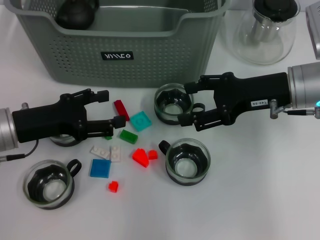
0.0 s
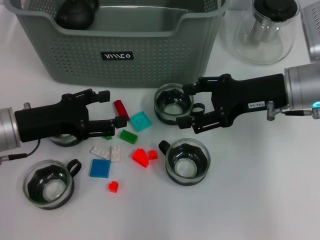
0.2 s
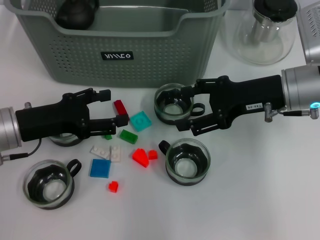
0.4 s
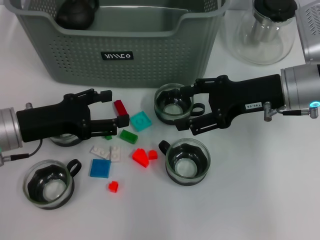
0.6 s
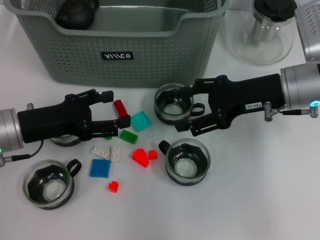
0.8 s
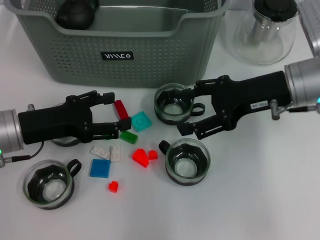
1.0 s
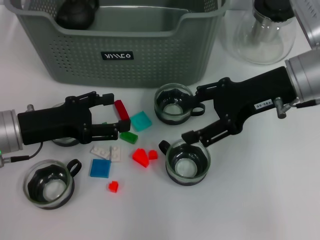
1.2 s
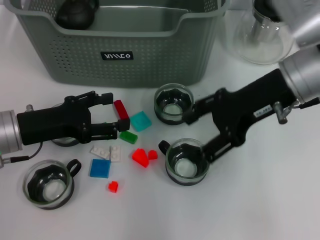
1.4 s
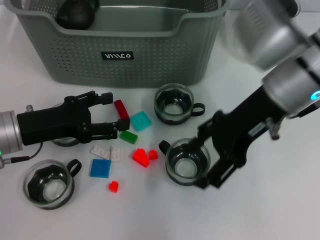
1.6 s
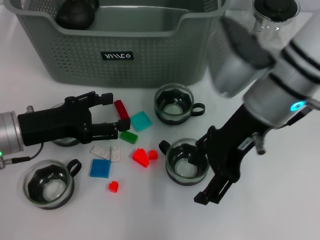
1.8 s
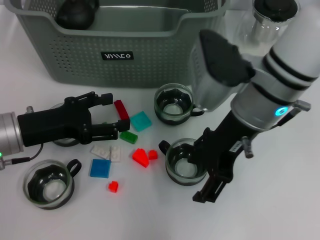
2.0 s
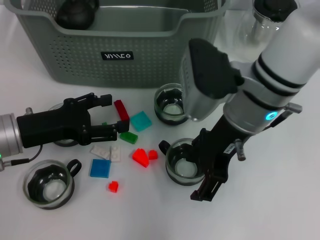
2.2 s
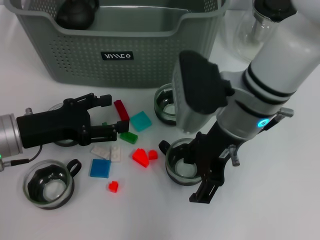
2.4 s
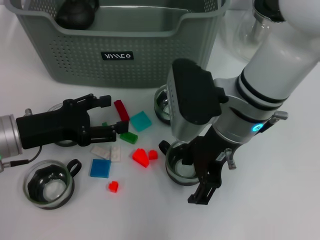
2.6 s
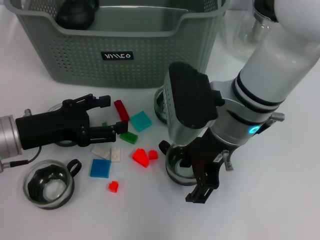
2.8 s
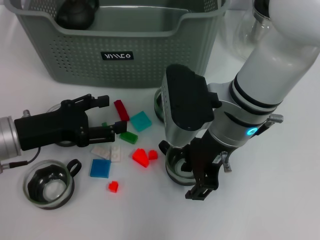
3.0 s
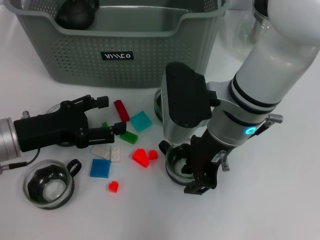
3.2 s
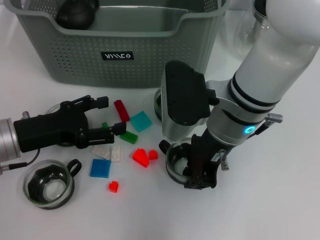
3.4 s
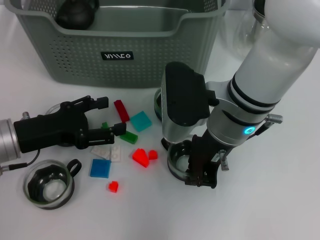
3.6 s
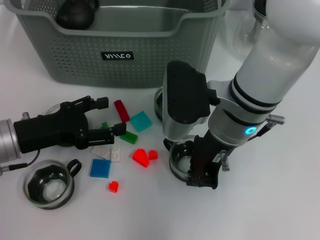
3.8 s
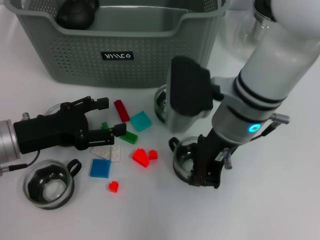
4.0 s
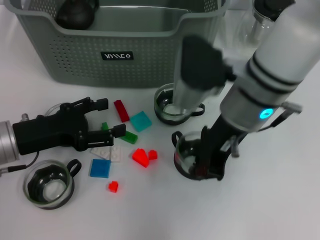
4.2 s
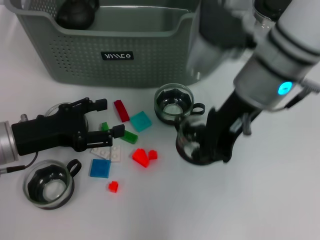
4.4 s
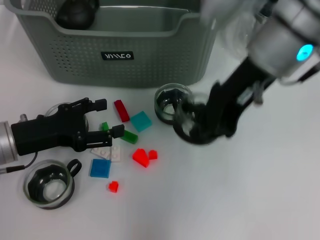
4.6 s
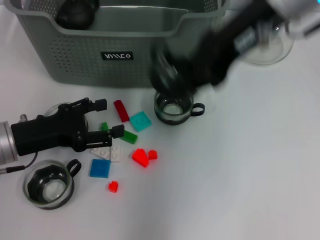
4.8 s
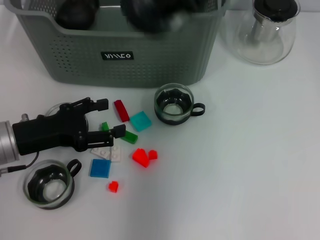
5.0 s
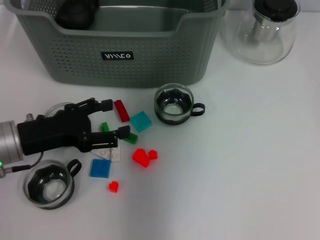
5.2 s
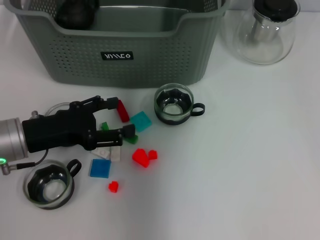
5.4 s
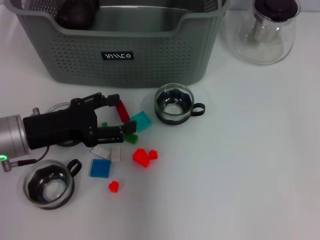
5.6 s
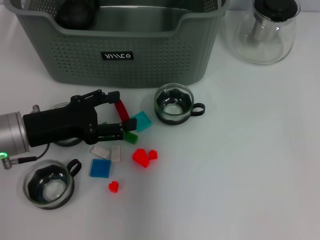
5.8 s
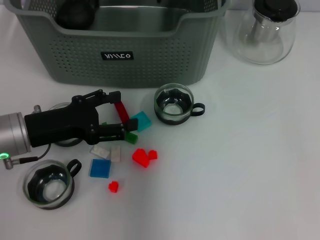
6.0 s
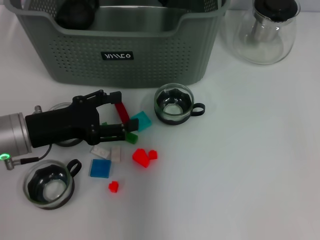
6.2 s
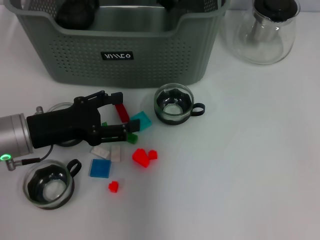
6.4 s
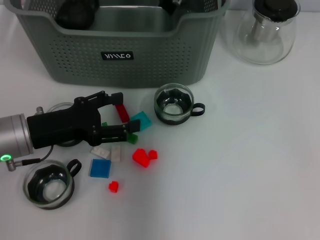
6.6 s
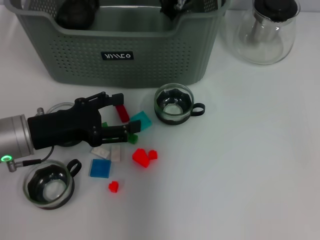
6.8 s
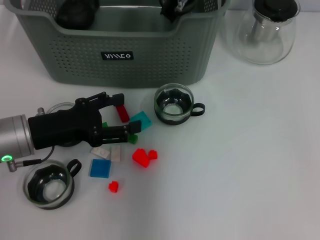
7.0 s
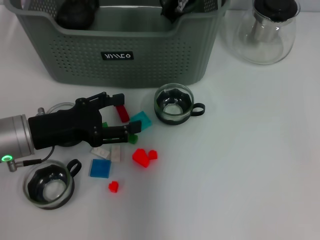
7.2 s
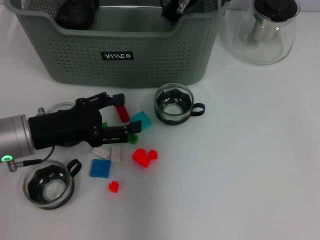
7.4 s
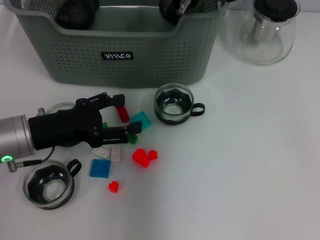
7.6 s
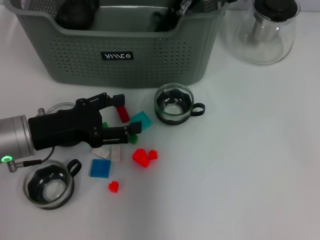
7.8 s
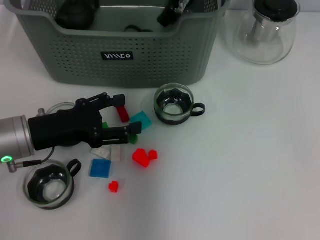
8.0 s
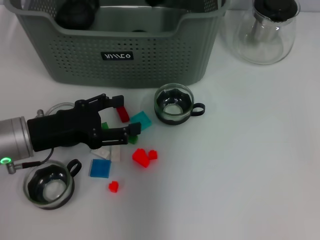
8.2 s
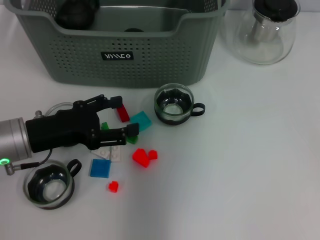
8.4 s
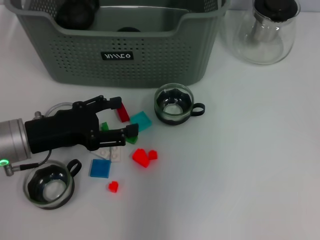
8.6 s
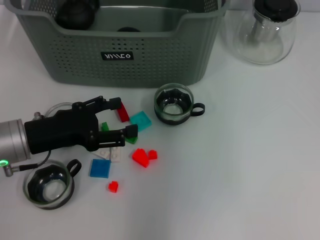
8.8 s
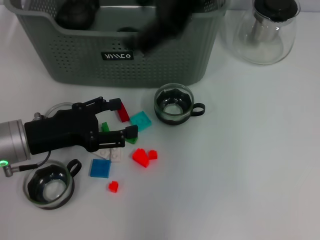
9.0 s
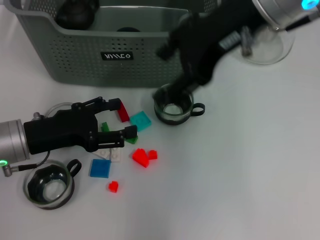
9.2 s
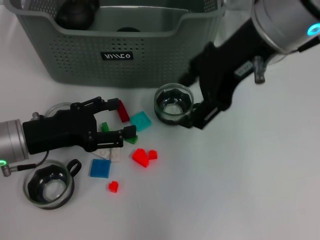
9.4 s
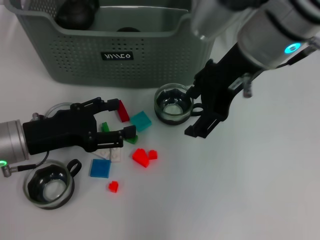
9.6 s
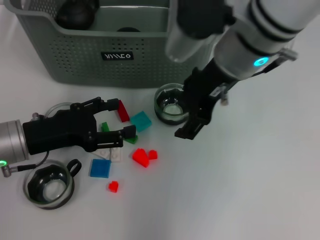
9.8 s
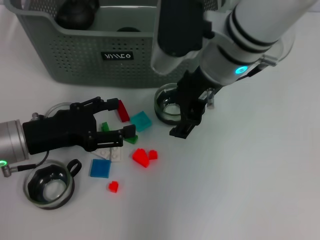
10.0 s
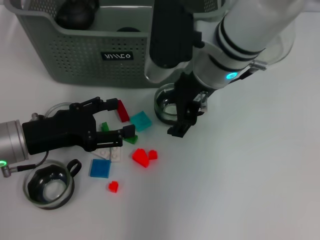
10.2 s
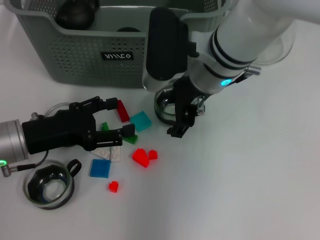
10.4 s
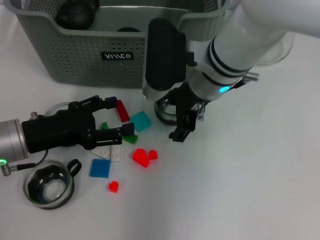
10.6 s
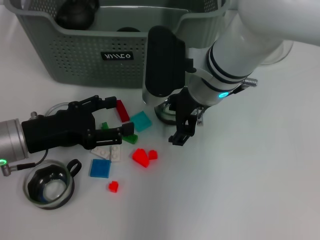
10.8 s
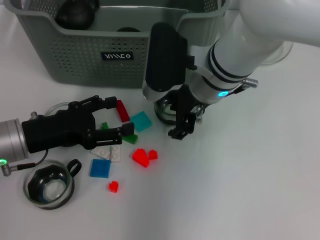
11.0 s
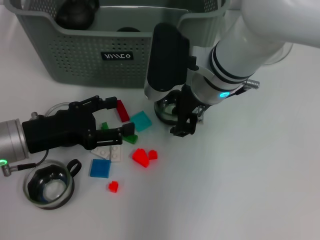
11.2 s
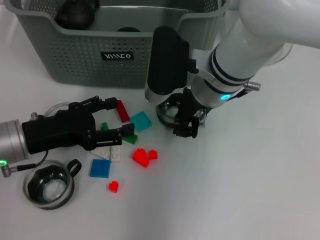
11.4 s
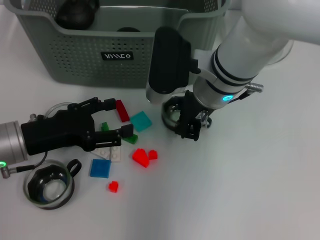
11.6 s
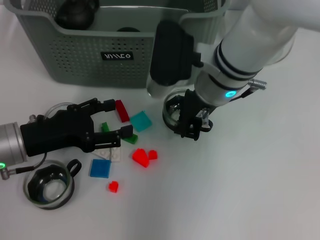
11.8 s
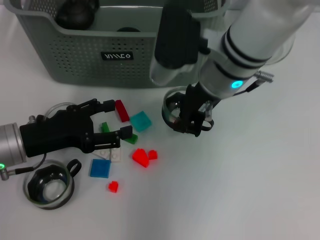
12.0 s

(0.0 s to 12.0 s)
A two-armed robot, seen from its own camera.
Task of the whole recording: pick up the teacup on the table and place it into the storage bin, pick up the block on the table and place it into the storage bin.
Step, 0.0 s - 3.6 s: Grasp the cup with right gripper.
Step, 3.8 s - 8.0 s: Place the cup in the storage box with right gripper.
Step, 8.2 s - 11.6 s: Grasp the cup with right gripper.
0.0 s - 1.6 s: The right gripper shifts some 10 cm to the left and upward.
1.6 s - 3.0 s: The right gripper is displaced to the left by about 5 cm.
3.0 s - 4.4 s: The right gripper moves upward, approximately 5 cm, and closes its fingers.
4.4 s - 6.0 s: The right gripper goes about 15 cm forward and to the left, and travels upward and back again, about 15 cm each way.
6.0 s - 7.6 s: The grippers stay close to where they were, moving slightly.
7.6 s - 9.0 s: The right gripper is displaced backward and upward by about 15 cm, and opens.
9.0 s - 10.4 s: The right gripper heads downward, covering roughly 15 cm.
10.4 s - 12.0 s: The right gripper closes up.

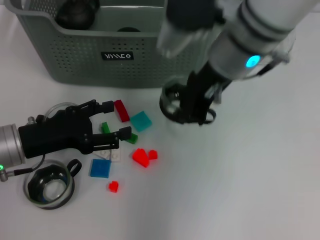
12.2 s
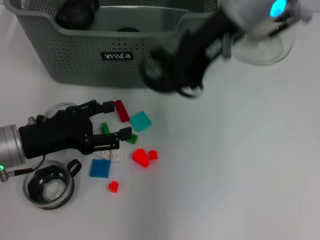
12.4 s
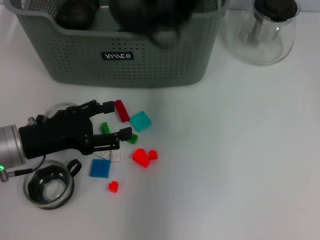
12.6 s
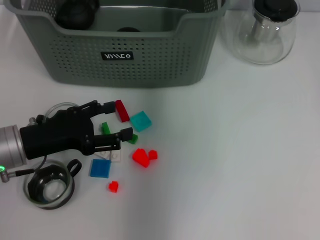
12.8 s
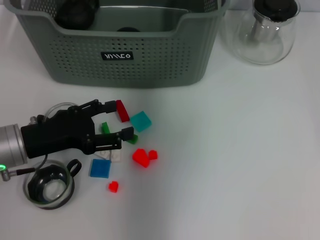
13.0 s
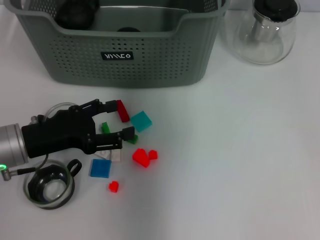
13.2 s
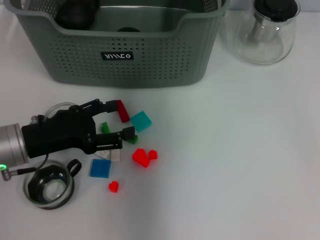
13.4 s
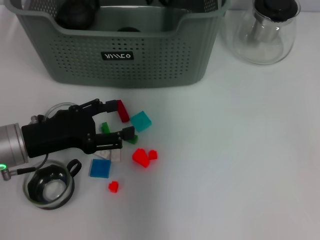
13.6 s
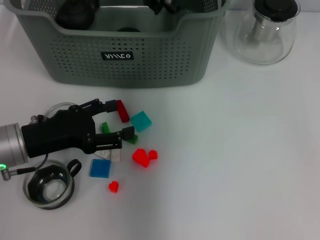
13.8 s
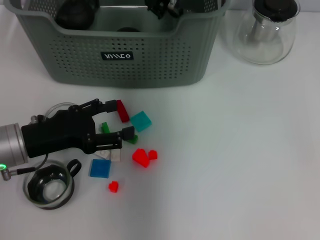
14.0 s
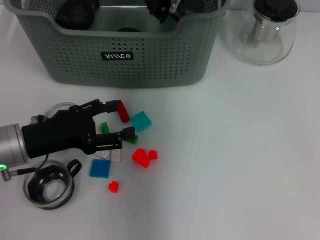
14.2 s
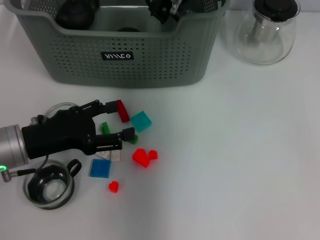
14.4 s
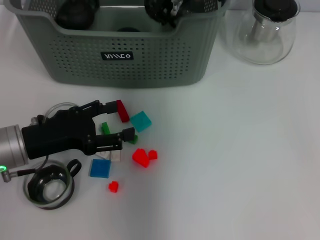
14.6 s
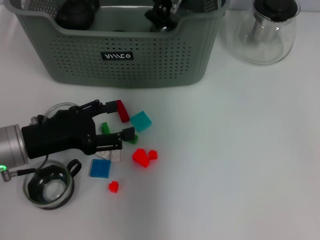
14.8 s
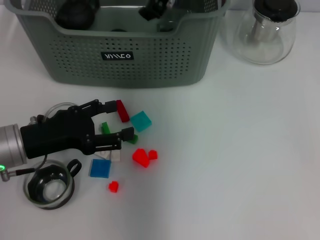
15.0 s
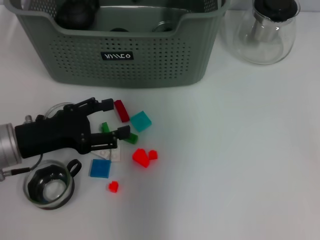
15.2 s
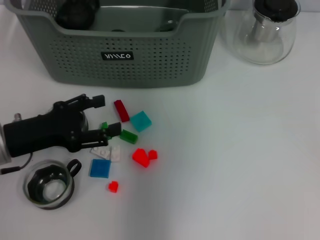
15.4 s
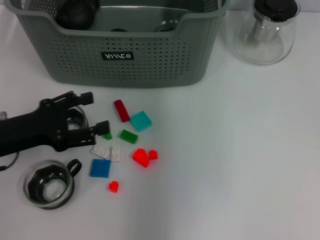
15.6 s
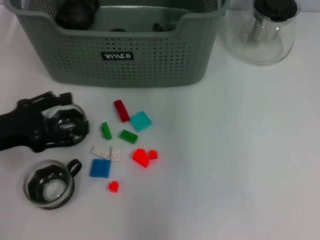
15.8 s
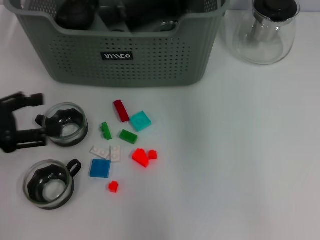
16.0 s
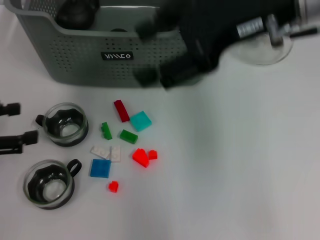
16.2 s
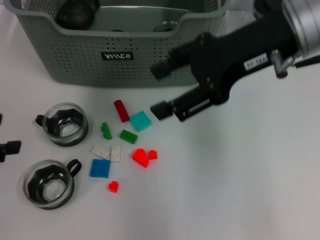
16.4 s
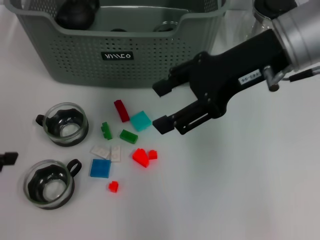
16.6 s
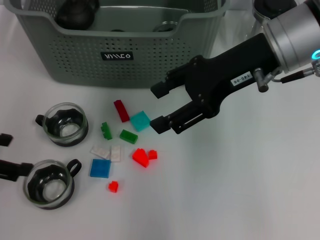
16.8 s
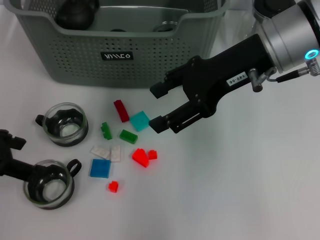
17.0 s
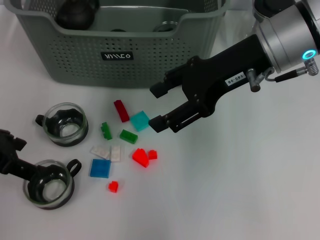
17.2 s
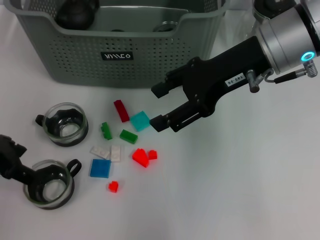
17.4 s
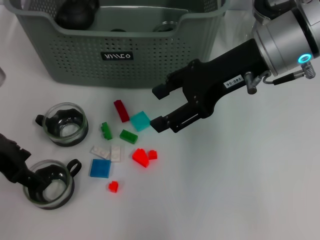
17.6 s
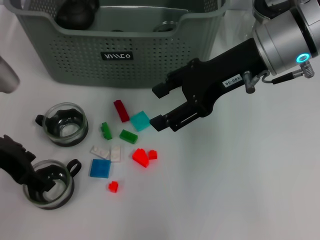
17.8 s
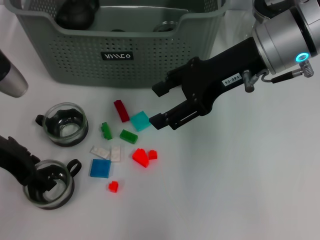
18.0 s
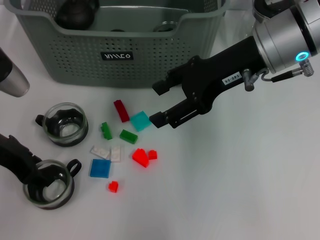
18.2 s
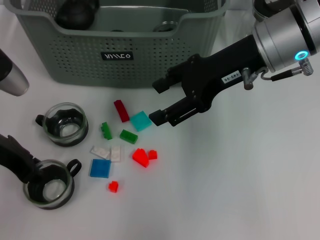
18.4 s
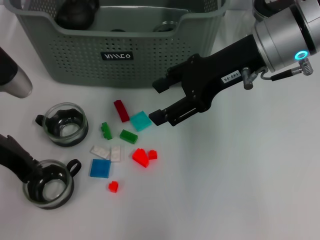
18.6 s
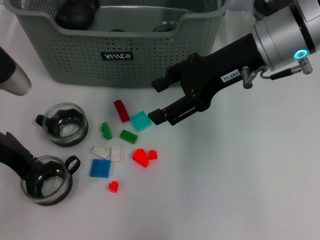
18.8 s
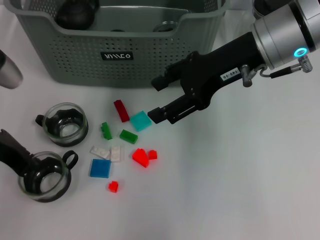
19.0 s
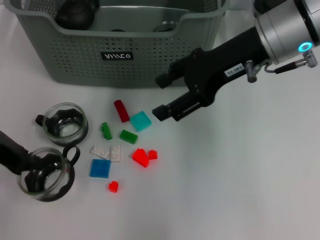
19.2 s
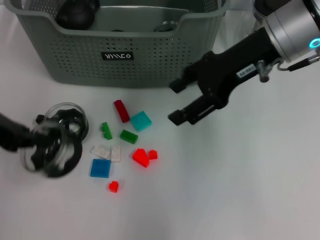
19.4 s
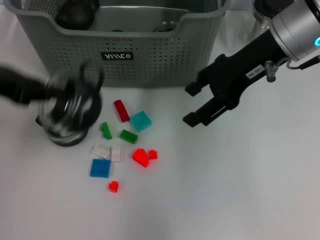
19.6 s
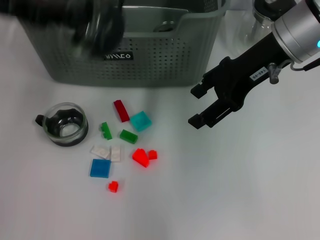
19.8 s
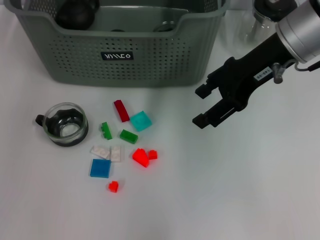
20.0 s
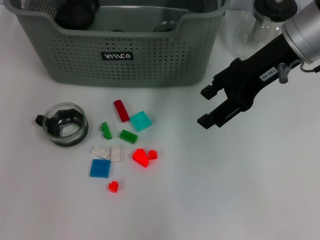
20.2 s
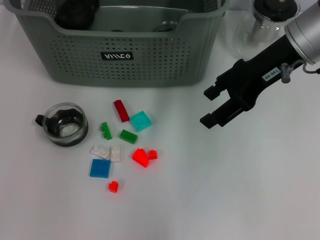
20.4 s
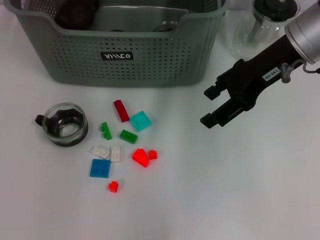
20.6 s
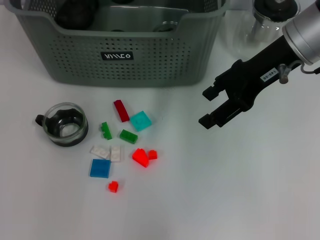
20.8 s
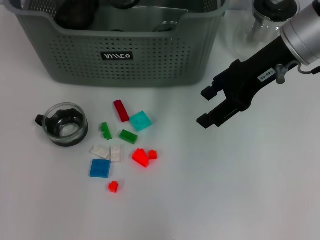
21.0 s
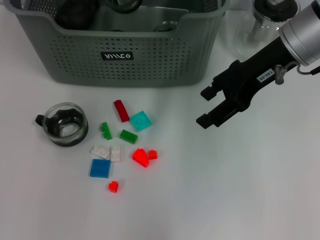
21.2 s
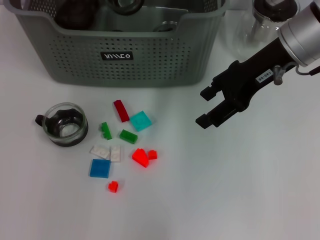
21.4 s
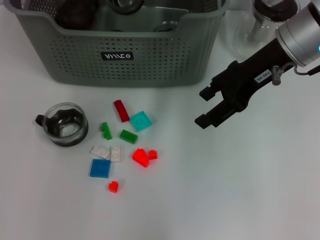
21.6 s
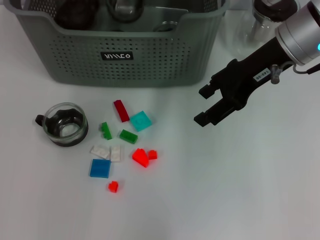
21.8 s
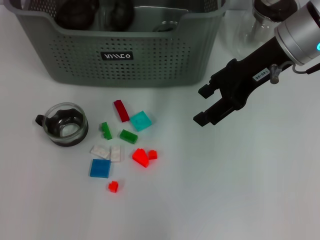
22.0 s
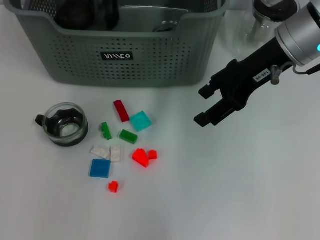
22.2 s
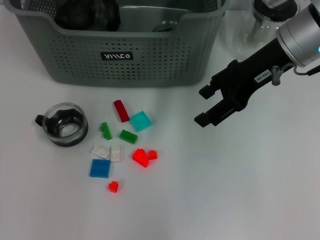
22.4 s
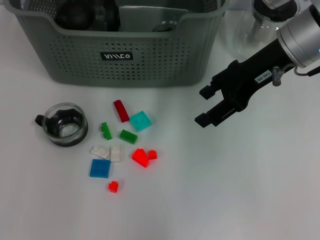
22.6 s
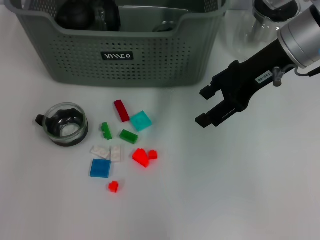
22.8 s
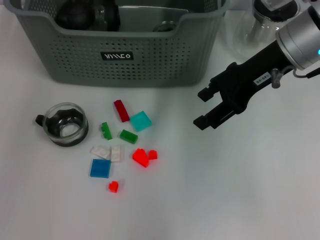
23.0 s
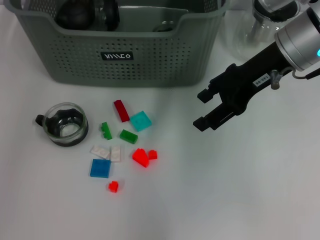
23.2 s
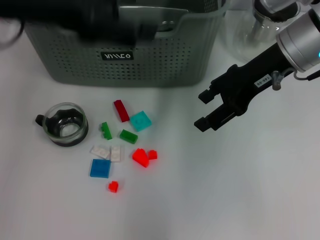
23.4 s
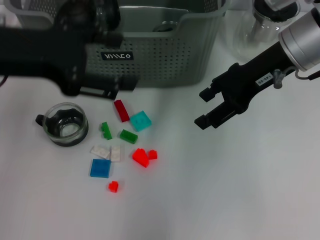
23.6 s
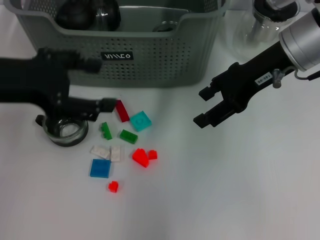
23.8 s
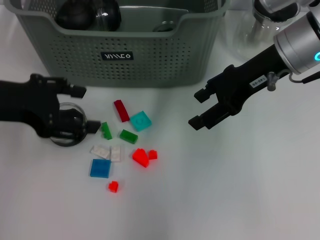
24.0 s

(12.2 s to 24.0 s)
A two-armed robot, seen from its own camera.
Task of the whole recording: pick up the teacup on the table and place it into the storage bin, pick up the block on the table and place it into the storage bin.
Step, 12.2 s - 14.8 s: Place the cup in the storage box with right gripper.
Step, 15.0 s - 18.6 s: Grasp the cup with left gripper.
Step, 18.8 s - 21.8 s: Place the cup in the storage box with left gripper.
12.2 s - 13.6 s: The right gripper is displaced forward by about 10 cm, and reaches about 15 cm upward, then returns.
13.6 s - 15.2 s: The right gripper opens.
15.2 s - 16.6 s: The right gripper moves backward and to the right, about 15 cm. Meanwhile the left gripper goes approximately 15 cm upward and to the left.
16.6 s - 18.2 s: The left gripper moves to the right and forward, roughly 10 cm.
18.2 s - 19.6 s: The left gripper travels upward by about 10 cm, and closes.
19.6 s - 21.0 s: The left gripper moves forward and to the right, approximately 25 cm.
21.0 s - 22.6 s: The left gripper opens up.
22.6 s - 24.0 s: The left gripper goes roughly 25 cm backward and to the left.
